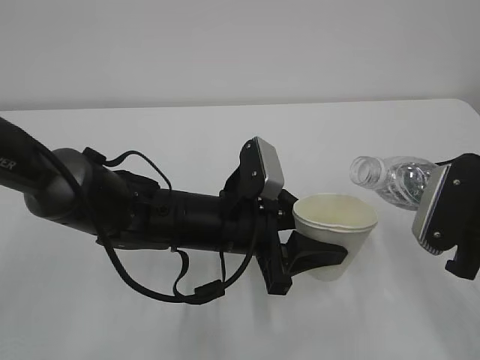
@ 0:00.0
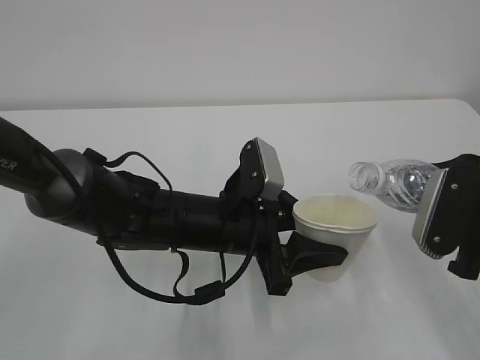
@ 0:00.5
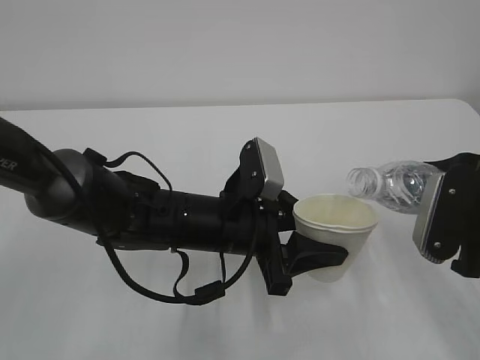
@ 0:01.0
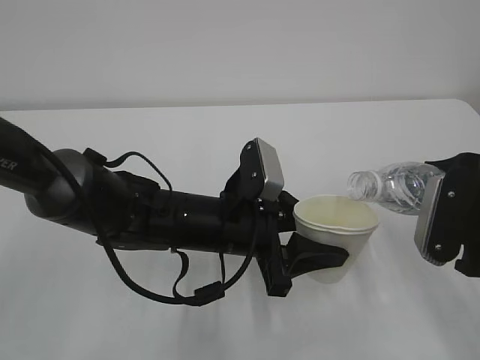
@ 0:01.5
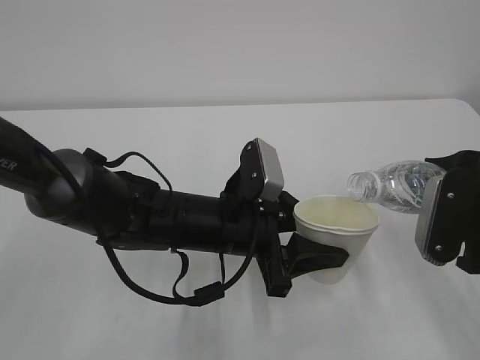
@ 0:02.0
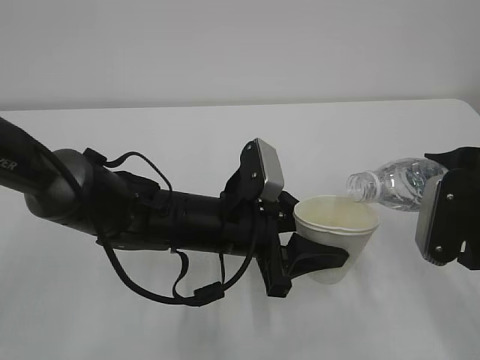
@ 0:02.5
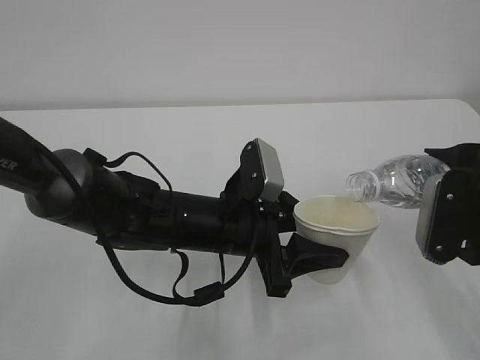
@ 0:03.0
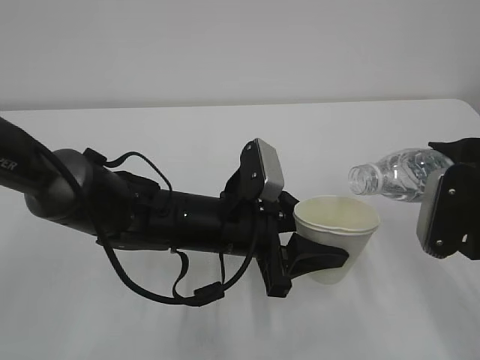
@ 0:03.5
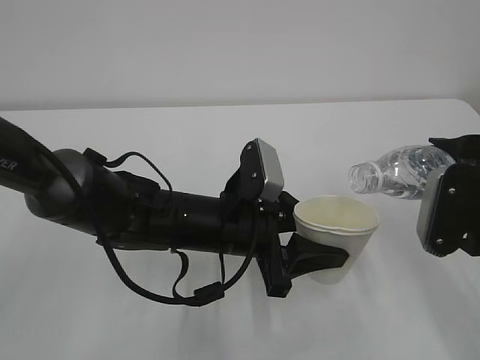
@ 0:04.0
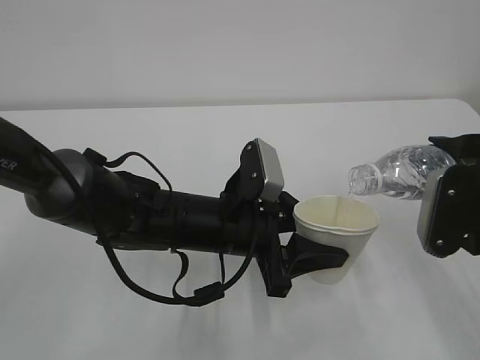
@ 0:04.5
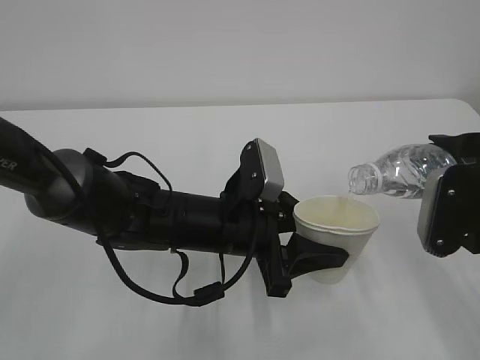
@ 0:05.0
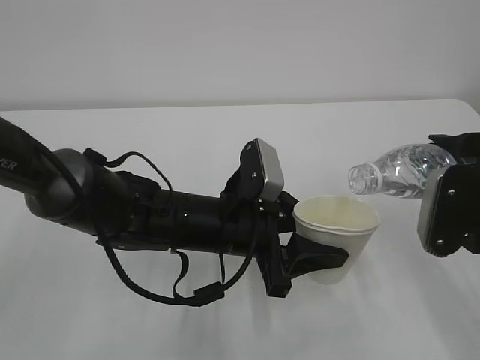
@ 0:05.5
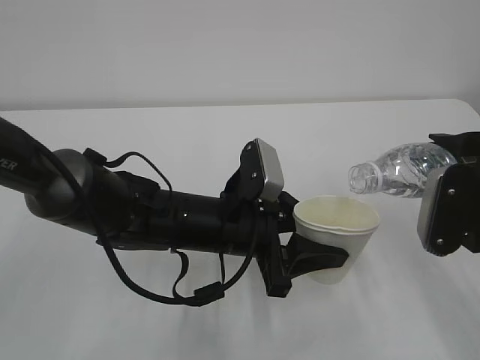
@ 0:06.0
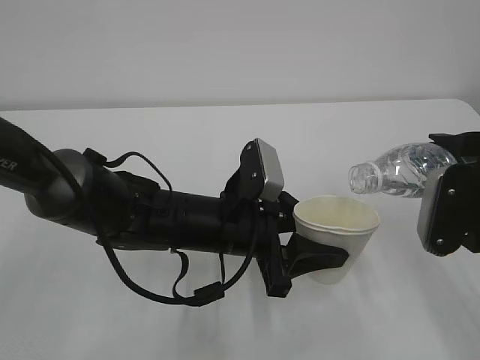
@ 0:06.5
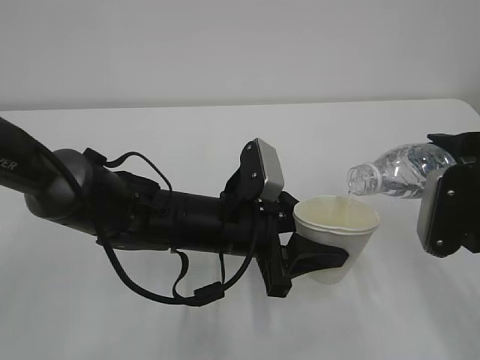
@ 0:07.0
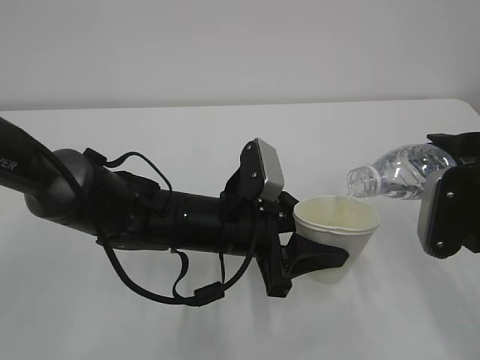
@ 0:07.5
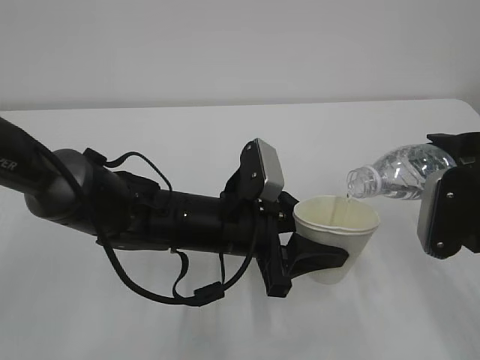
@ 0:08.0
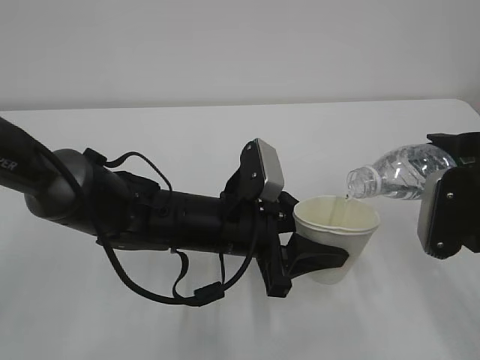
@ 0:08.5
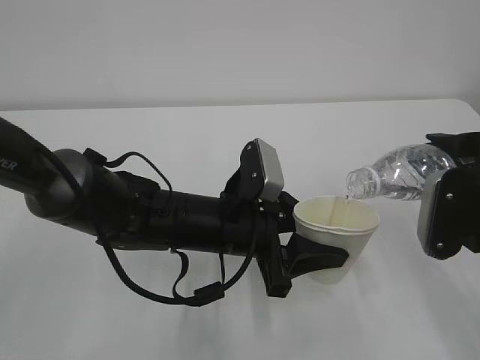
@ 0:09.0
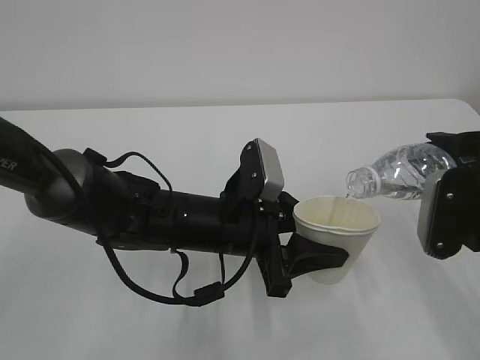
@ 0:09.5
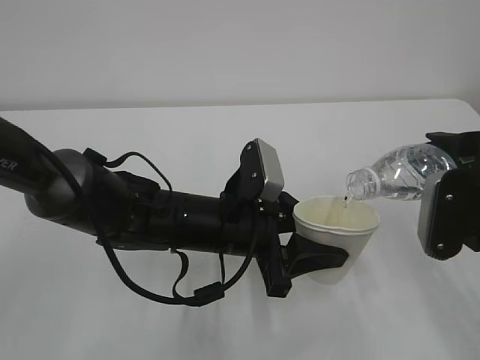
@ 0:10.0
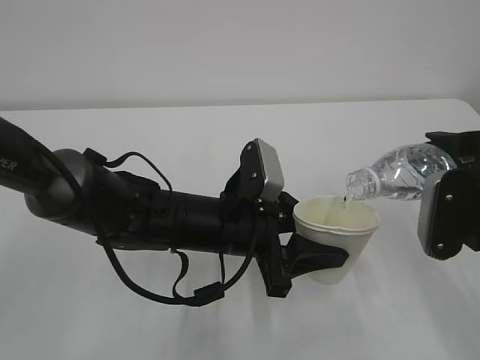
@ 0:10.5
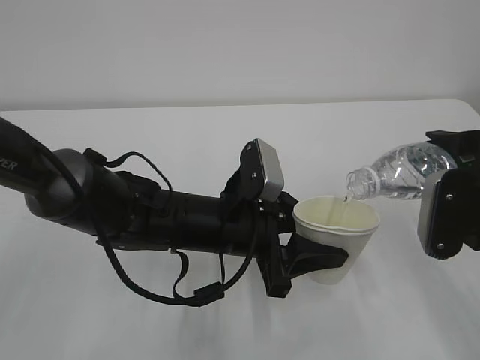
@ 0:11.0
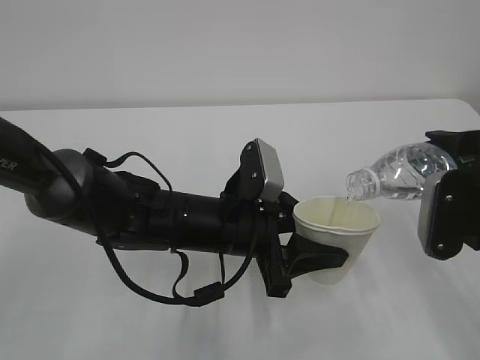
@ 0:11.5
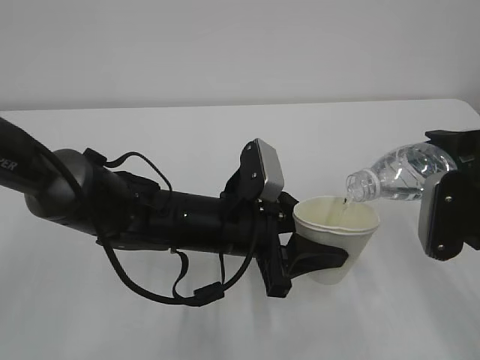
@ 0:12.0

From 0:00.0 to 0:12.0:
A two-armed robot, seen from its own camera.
From 0:00.0 to 0:04.0: There are only small adjustments of the grippers.
From 0:04.0 to 0:08.0: Both grippers stay put.
From 0:08.0 to 0:12.0: The two grippers keep their place.

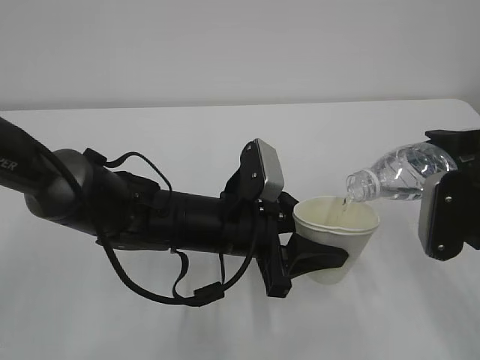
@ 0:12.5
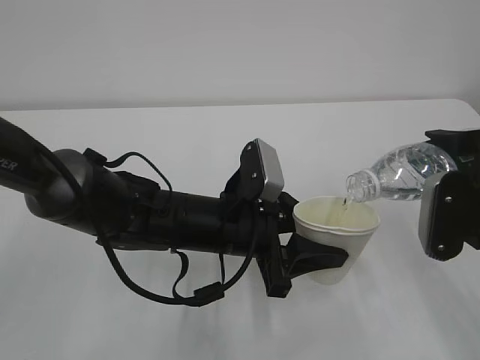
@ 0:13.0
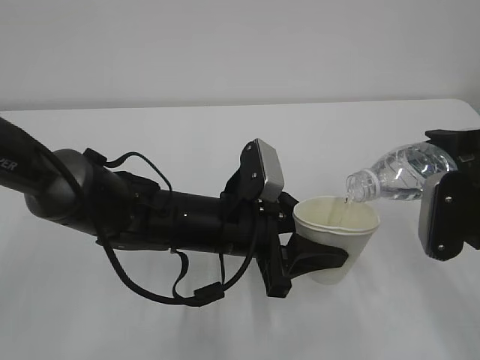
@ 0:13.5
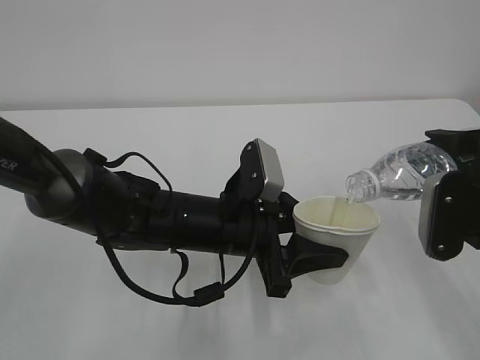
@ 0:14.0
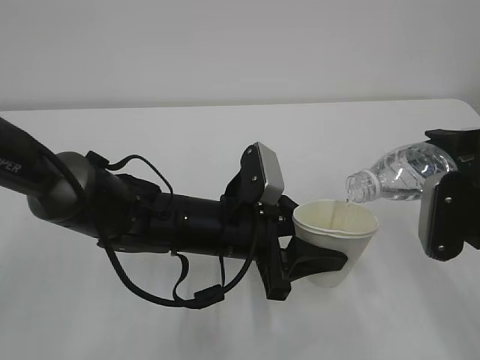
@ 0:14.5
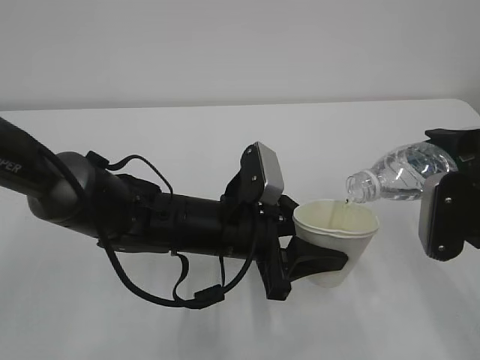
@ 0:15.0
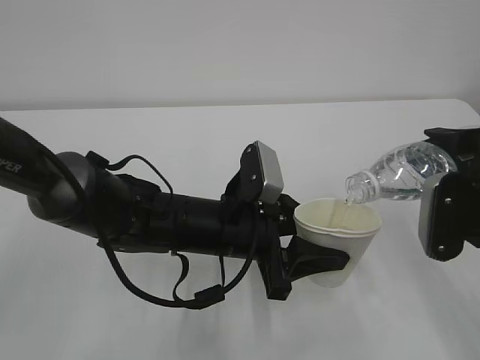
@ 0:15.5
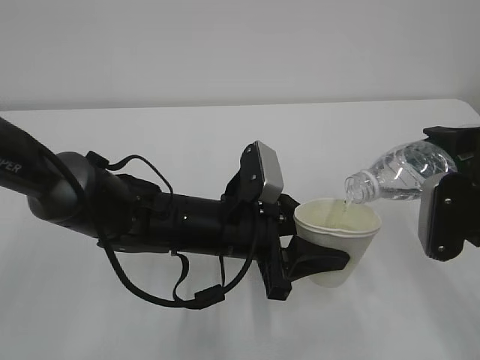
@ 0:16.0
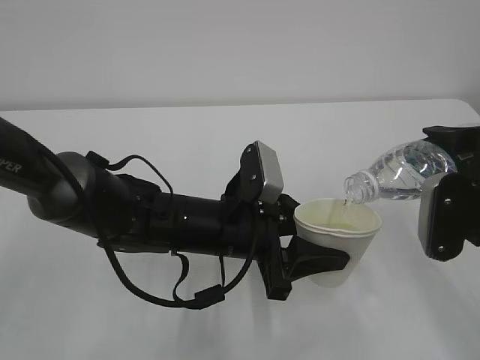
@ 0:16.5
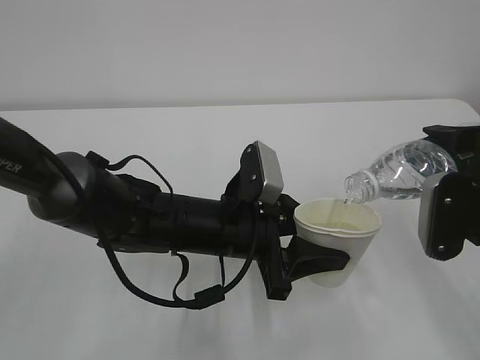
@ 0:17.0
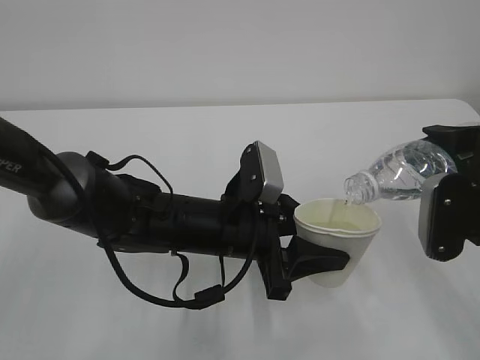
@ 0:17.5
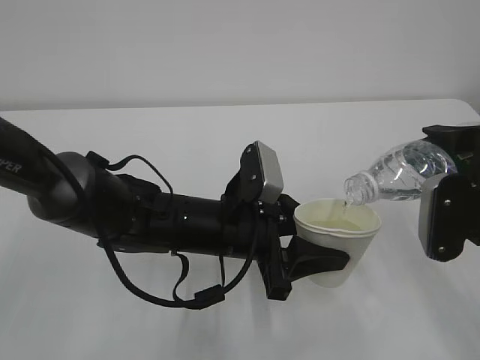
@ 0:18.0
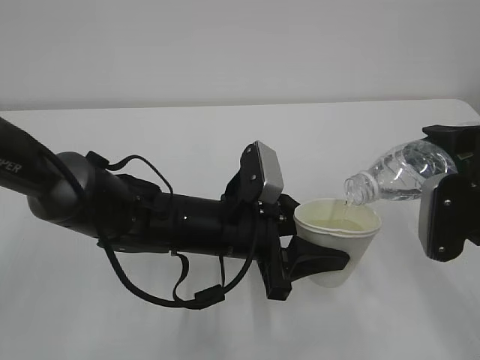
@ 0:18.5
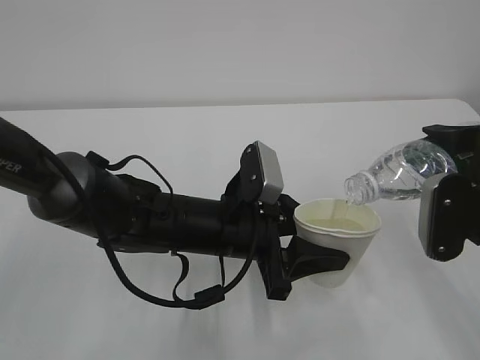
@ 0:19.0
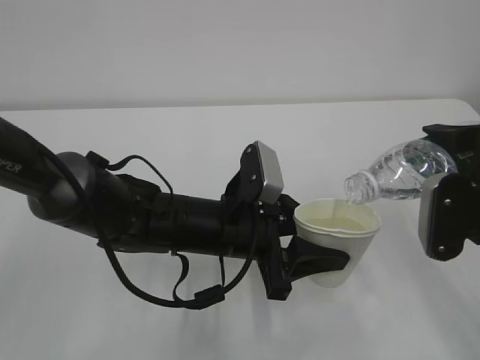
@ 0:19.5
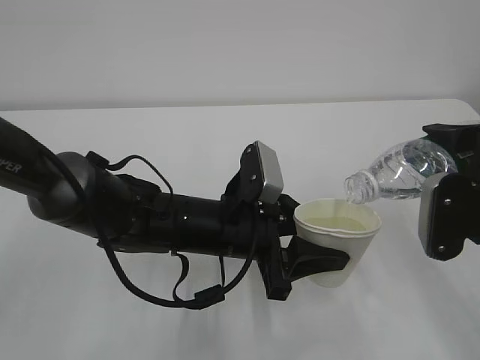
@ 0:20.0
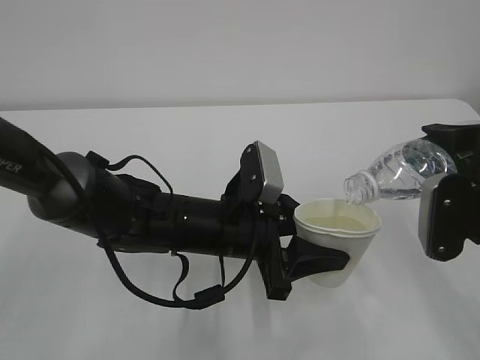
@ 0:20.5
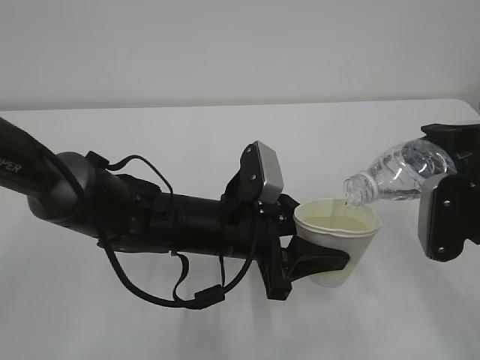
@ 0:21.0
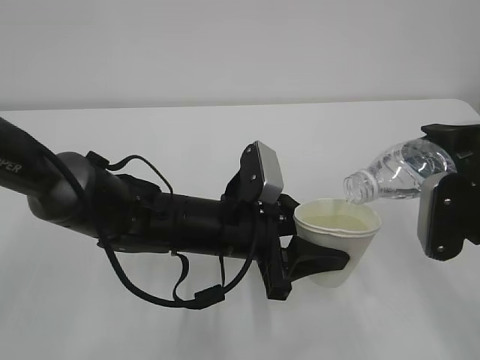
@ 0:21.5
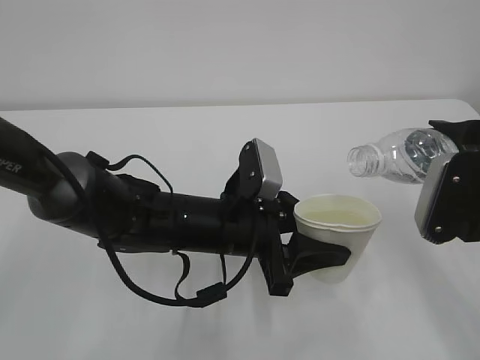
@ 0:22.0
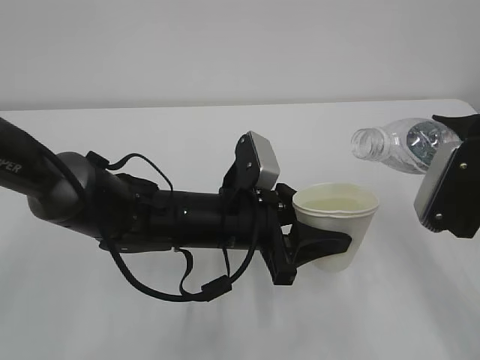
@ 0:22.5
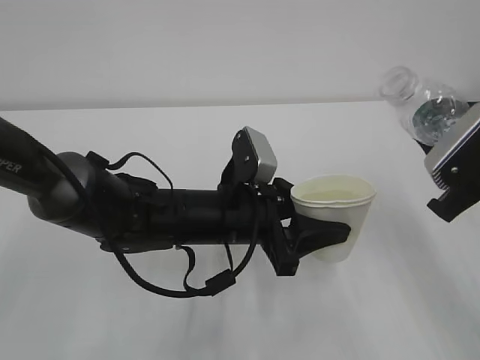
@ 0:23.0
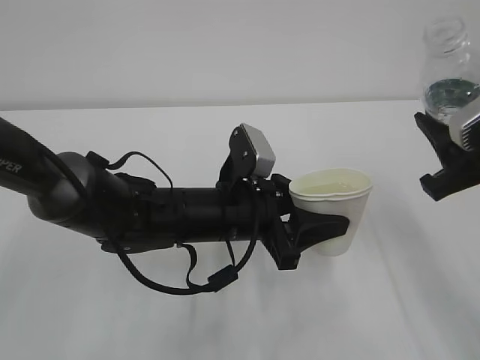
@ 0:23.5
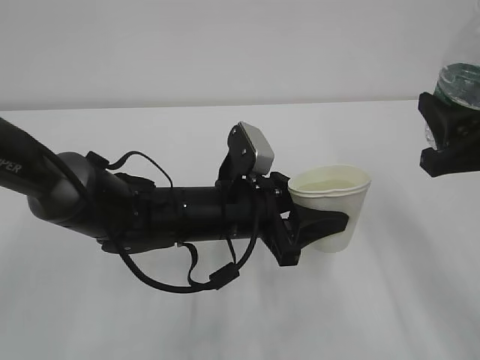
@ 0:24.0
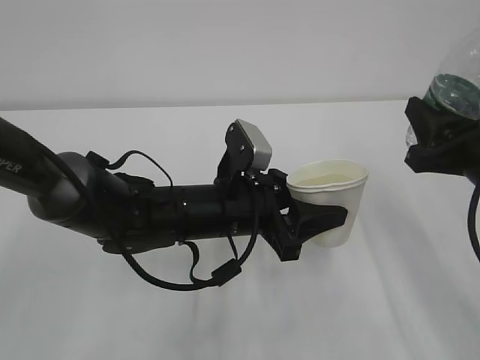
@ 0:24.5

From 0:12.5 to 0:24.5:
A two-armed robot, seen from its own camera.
From 0:12.5 to 0:20.5: Both grippers stay put.
From 0:20.5 to 0:22.5: The grippers stay close to where they were, moving slightly.

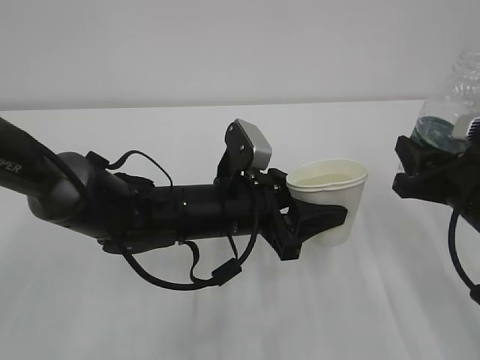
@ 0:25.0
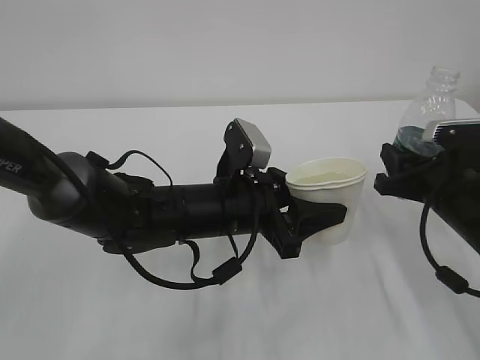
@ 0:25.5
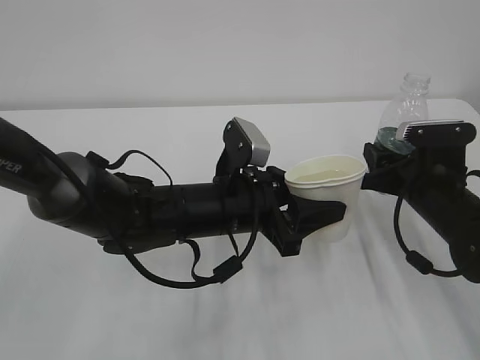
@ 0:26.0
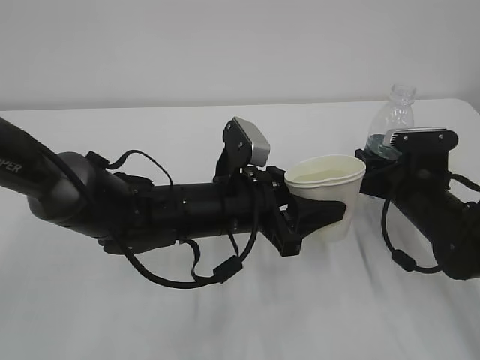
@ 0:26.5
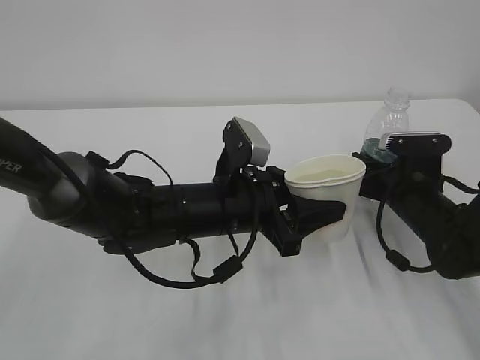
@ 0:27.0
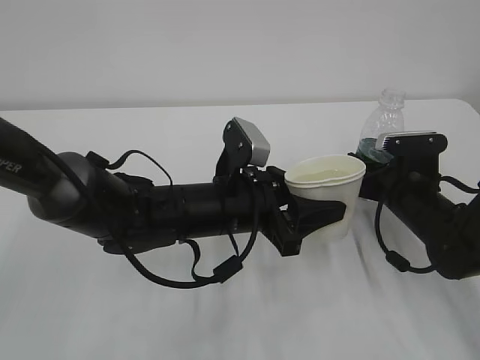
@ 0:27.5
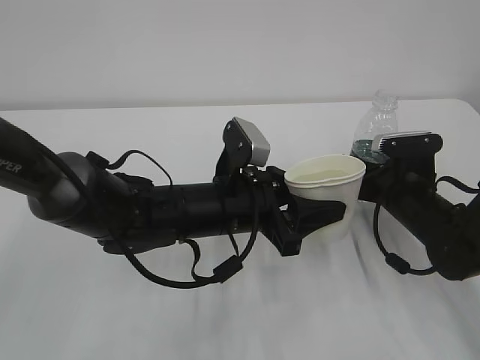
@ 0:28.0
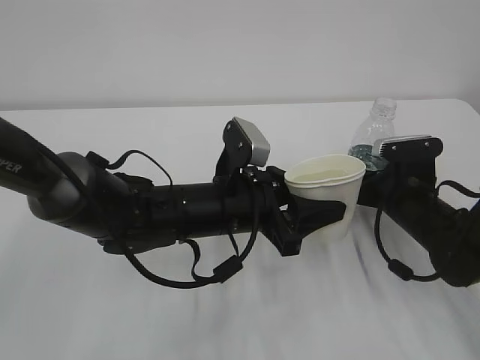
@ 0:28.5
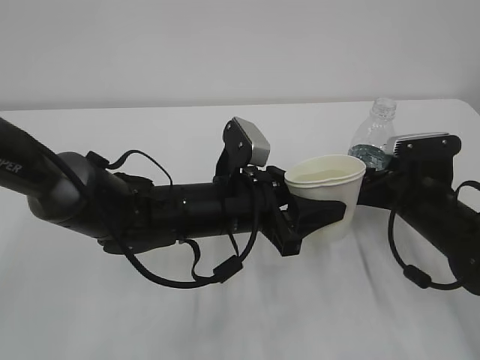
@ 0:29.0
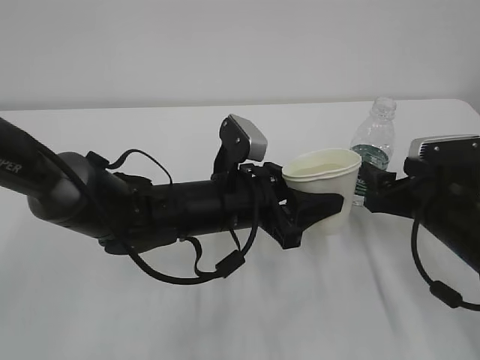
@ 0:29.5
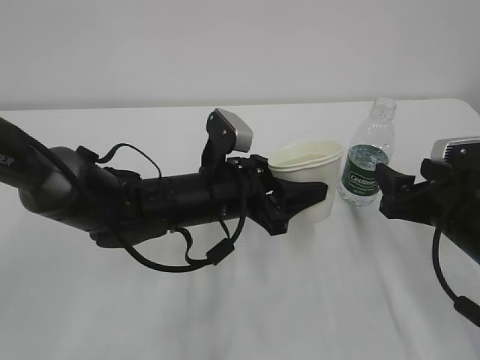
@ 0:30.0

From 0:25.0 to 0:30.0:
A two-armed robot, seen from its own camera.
From 0:25.0 to 0:27.5: The right gripper moves forward and downward, some 15 cm.
From 0:27.5 to 0:30.0: The right gripper moves backward and upward, about 10 cm, and opens.
